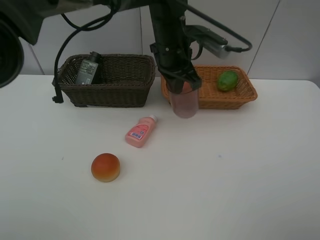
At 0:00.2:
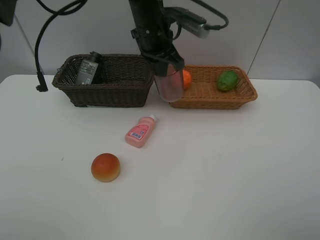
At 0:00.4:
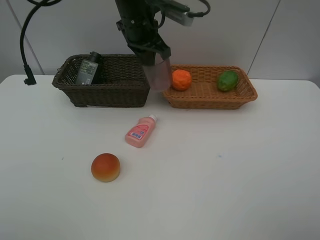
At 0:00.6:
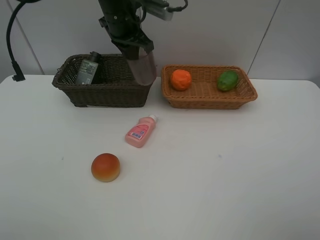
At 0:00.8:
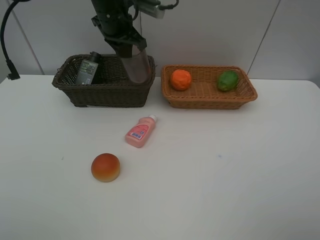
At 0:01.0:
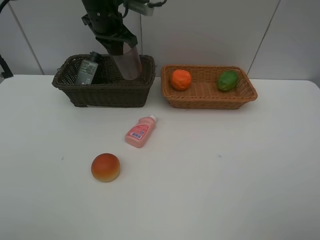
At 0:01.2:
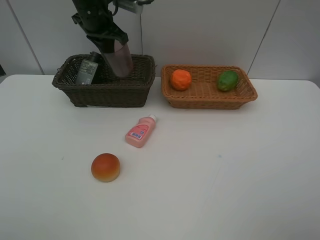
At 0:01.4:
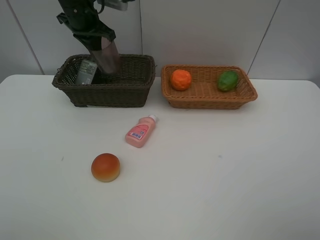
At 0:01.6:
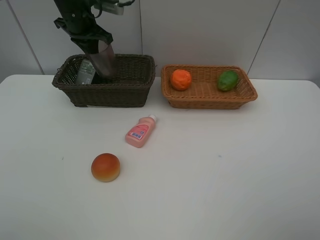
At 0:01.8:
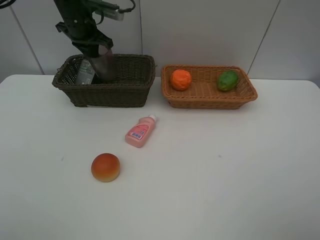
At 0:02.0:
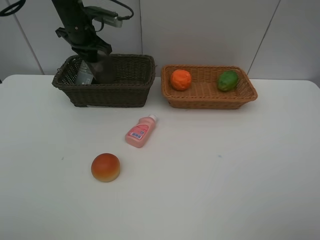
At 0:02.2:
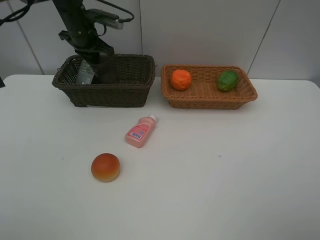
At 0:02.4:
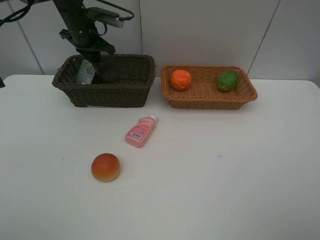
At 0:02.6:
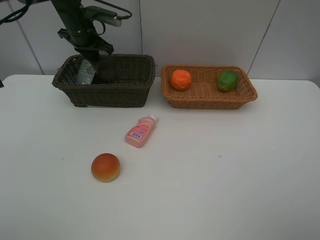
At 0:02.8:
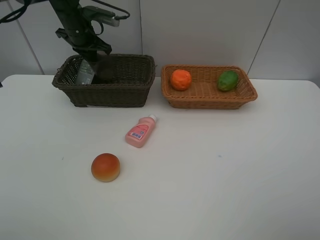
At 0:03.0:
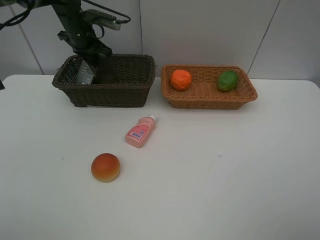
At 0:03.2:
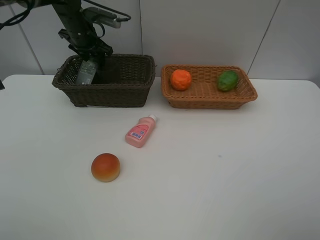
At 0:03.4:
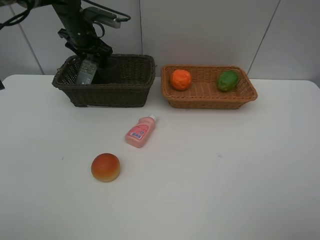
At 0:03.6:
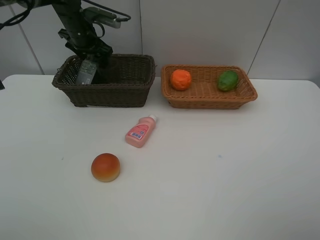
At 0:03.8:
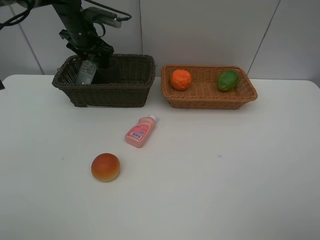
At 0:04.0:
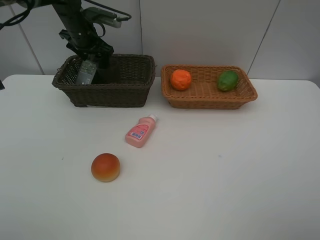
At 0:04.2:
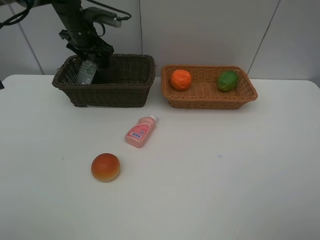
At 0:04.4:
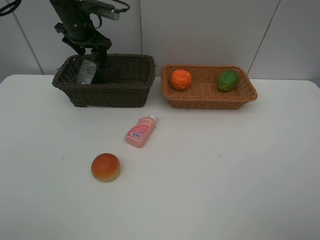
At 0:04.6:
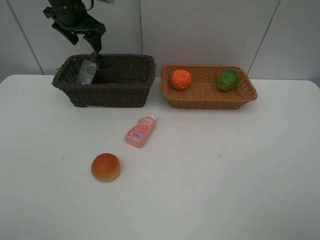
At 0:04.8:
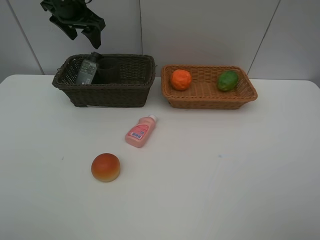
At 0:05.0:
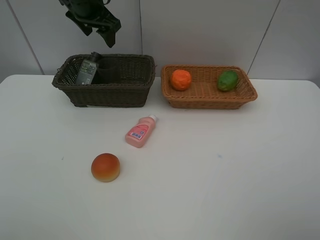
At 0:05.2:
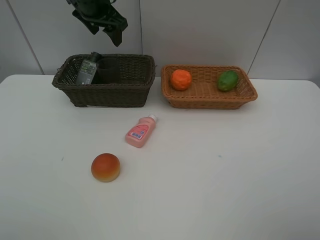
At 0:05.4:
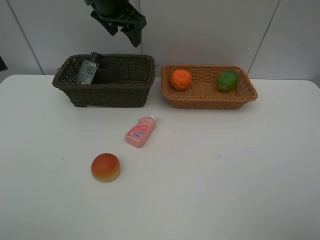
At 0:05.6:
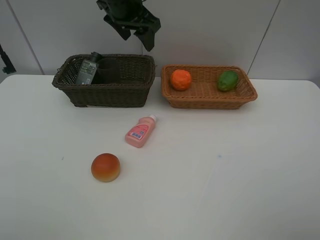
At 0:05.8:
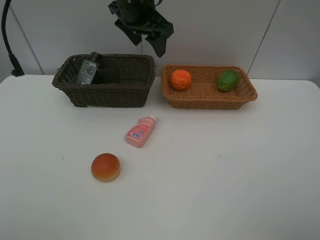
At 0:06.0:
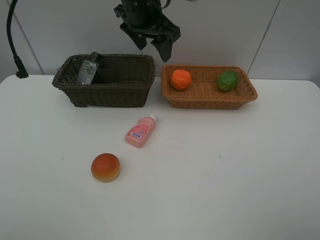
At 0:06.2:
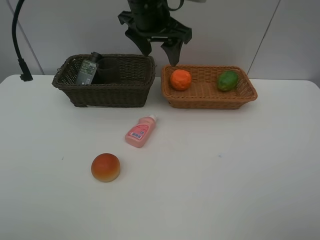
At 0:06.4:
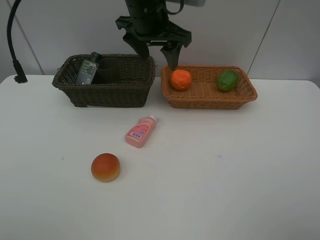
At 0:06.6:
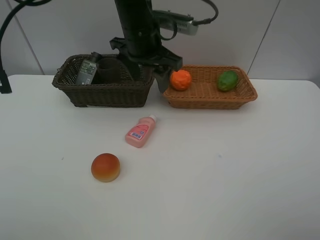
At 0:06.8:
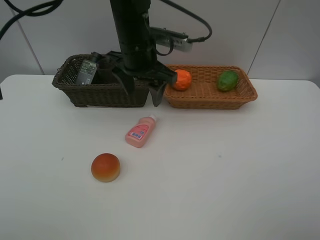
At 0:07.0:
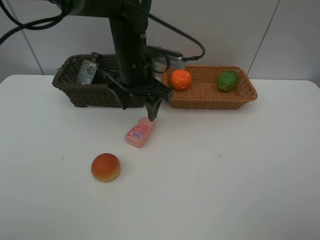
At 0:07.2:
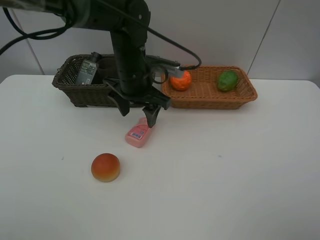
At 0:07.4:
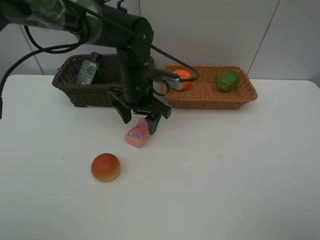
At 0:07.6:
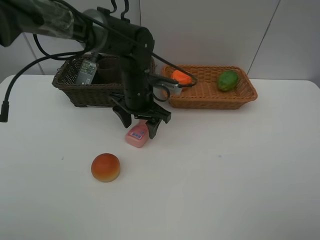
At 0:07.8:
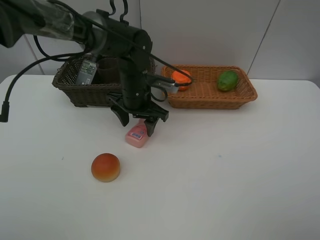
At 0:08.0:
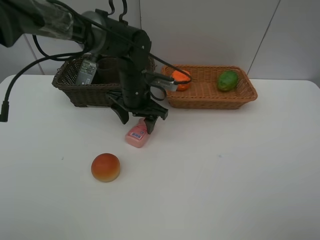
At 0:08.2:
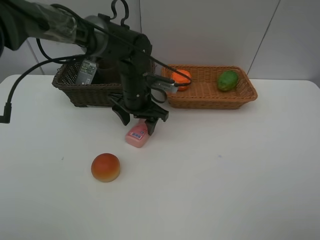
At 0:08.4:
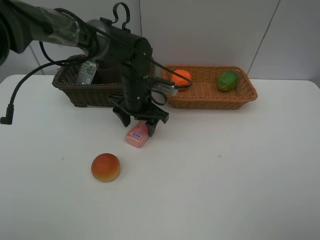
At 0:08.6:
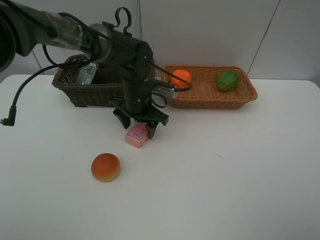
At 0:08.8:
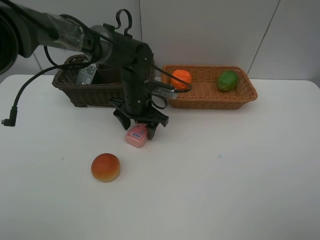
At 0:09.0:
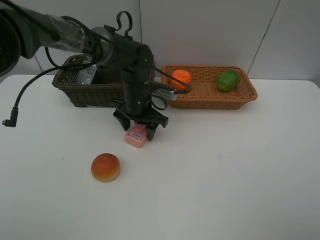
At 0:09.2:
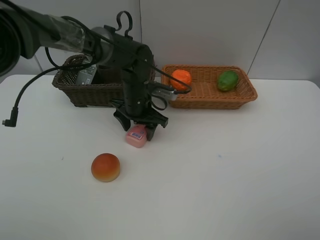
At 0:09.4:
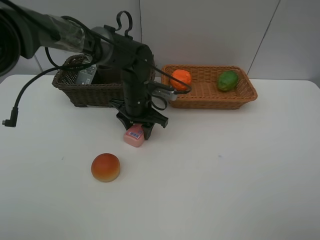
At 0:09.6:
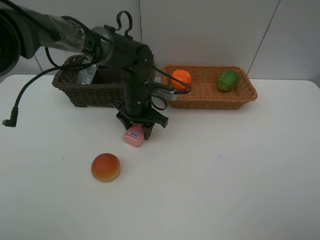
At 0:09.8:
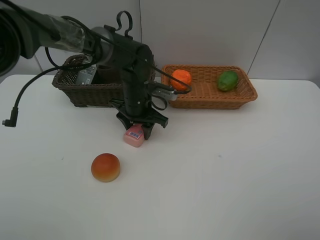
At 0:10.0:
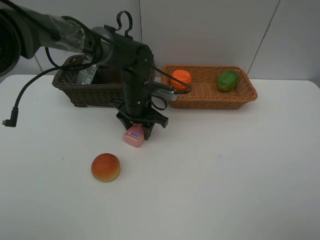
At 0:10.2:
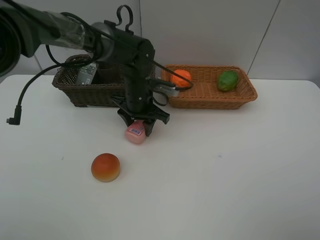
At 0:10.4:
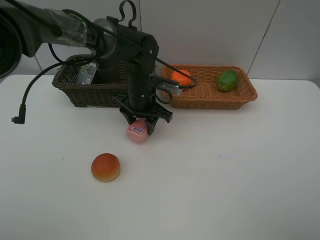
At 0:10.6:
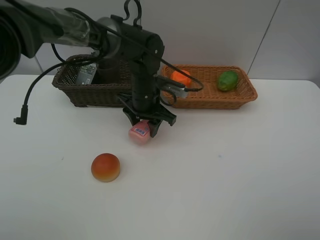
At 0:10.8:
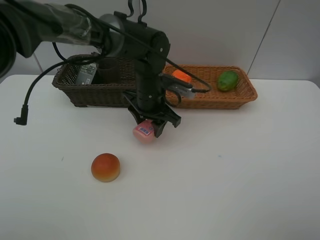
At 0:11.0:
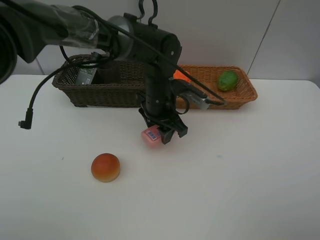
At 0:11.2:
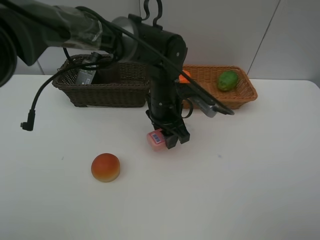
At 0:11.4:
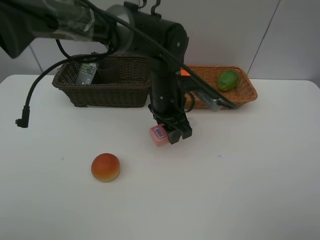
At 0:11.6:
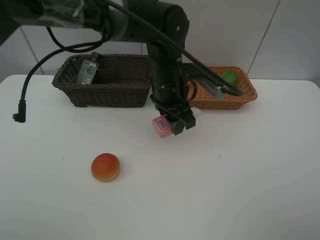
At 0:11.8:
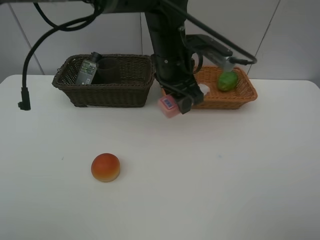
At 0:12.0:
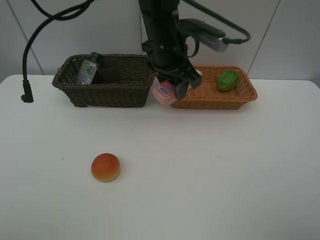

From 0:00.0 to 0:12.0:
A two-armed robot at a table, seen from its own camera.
Task of the whole recording: place multiple objects separately in different baskets.
From 0:00.0 to 0:01.6: The left gripper shifts some 25 cm to the left and forward.
From 0:01.6 to 0:03.0: The left gripper shifts by some 5 cm.
From 0:03.0 to 0:04.4: The left gripper opens its fingers.
From 0:04.4 to 0:06.0: The left gripper shifts roughly 20 cm to the right and backward.
From 0:06.0 to 0:07.6: The left gripper moves downward, about 15 cm.
From 0:07.6 to 0:10.4: There are only small adjustments of the grippers.
From 0:10.4 to 0:12.0: The left gripper shifts about 15 cm upward.

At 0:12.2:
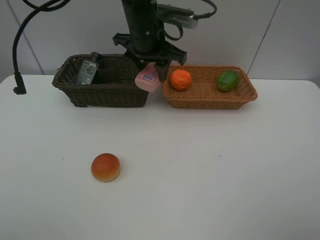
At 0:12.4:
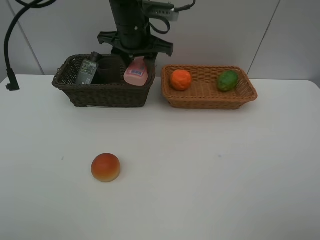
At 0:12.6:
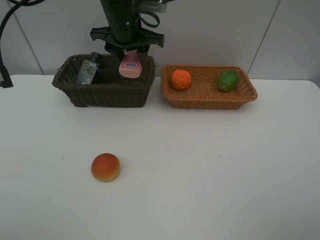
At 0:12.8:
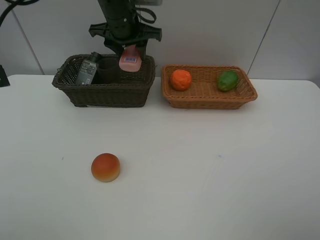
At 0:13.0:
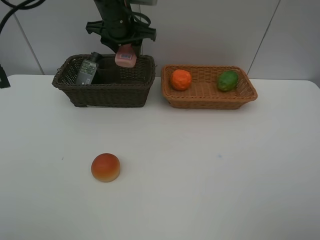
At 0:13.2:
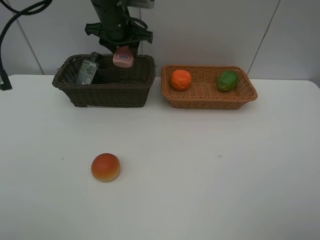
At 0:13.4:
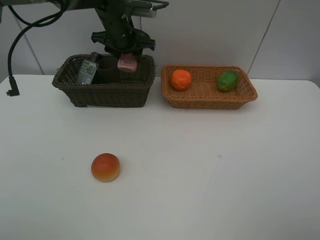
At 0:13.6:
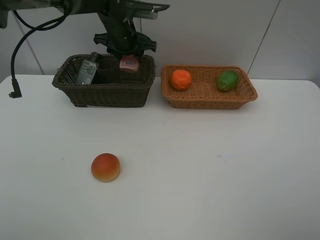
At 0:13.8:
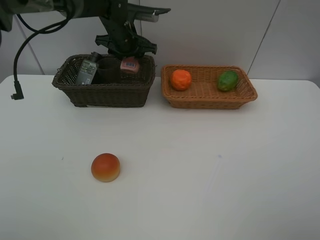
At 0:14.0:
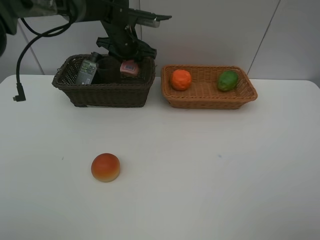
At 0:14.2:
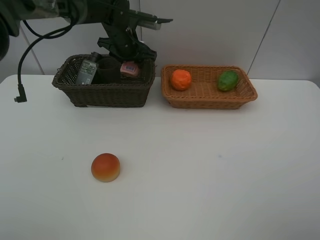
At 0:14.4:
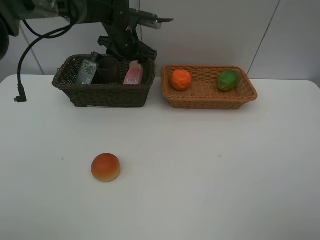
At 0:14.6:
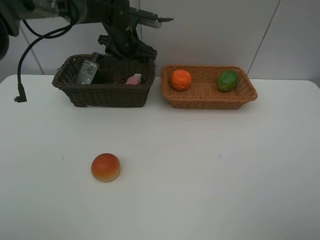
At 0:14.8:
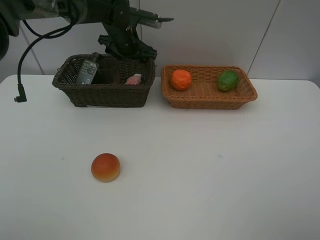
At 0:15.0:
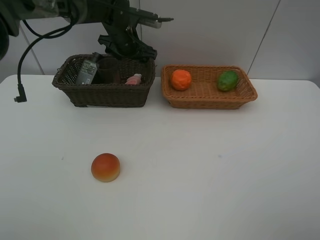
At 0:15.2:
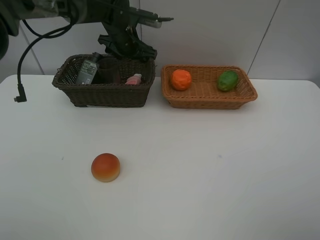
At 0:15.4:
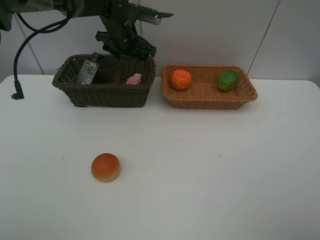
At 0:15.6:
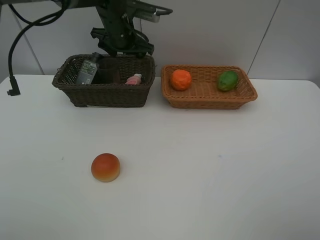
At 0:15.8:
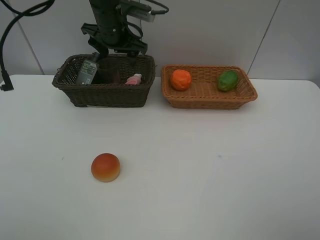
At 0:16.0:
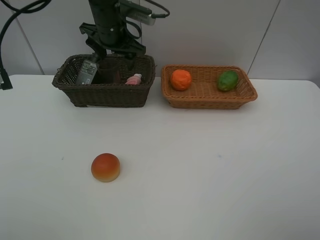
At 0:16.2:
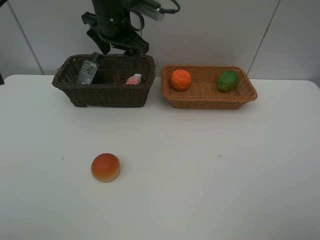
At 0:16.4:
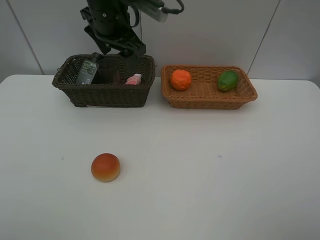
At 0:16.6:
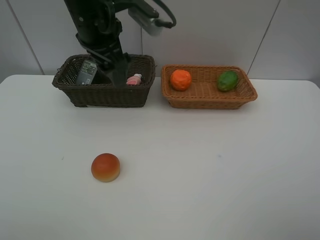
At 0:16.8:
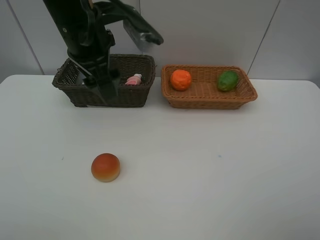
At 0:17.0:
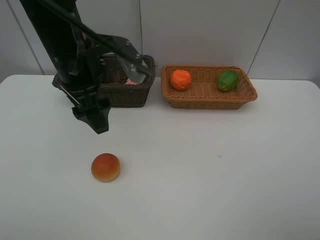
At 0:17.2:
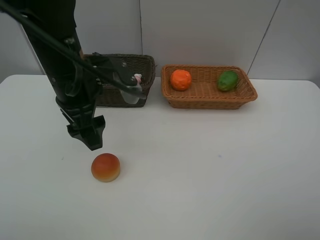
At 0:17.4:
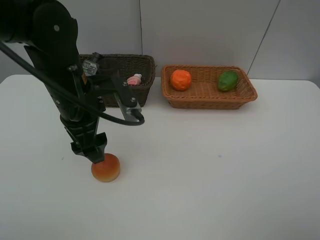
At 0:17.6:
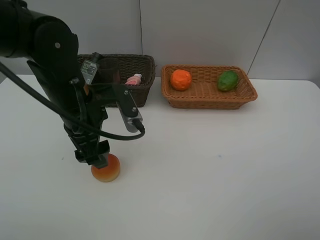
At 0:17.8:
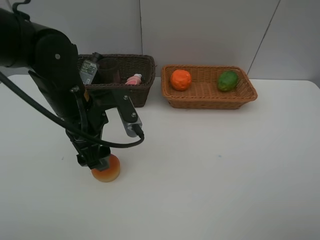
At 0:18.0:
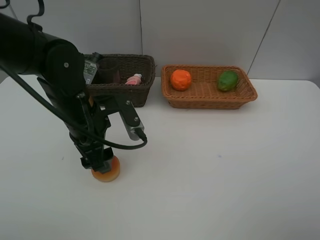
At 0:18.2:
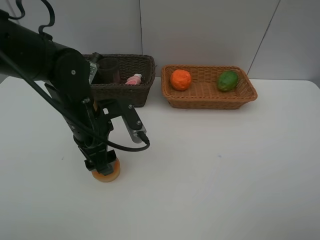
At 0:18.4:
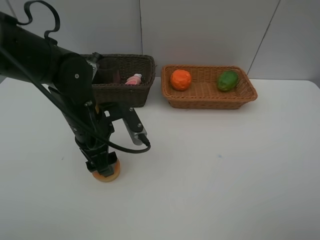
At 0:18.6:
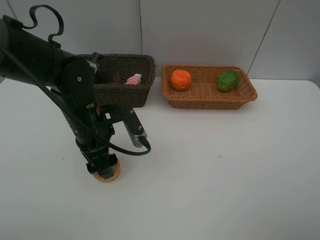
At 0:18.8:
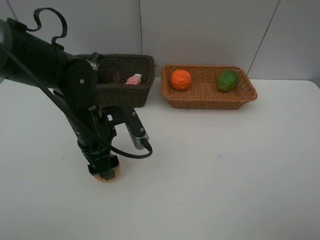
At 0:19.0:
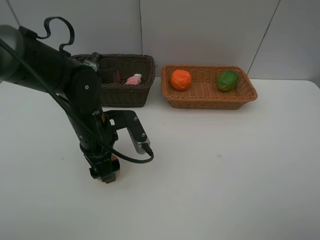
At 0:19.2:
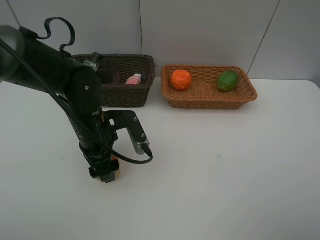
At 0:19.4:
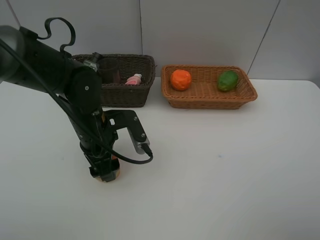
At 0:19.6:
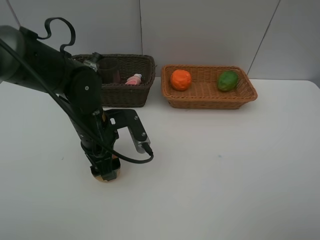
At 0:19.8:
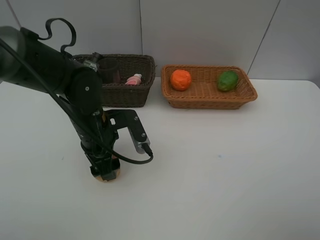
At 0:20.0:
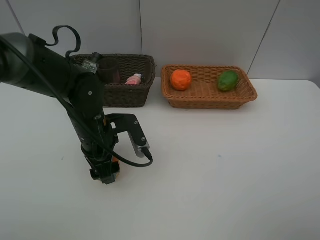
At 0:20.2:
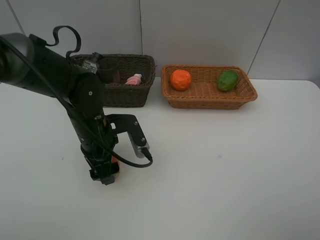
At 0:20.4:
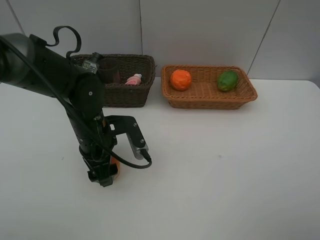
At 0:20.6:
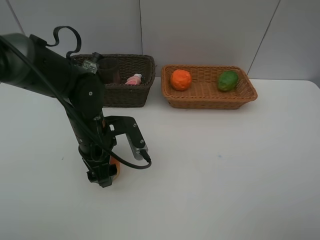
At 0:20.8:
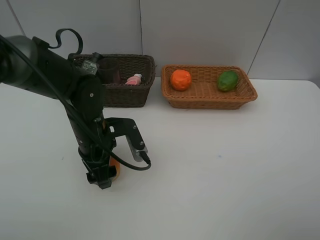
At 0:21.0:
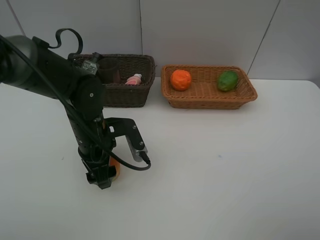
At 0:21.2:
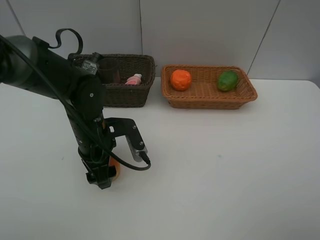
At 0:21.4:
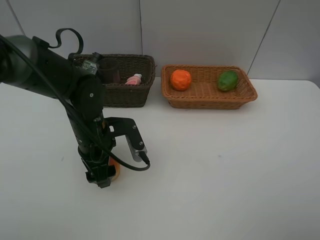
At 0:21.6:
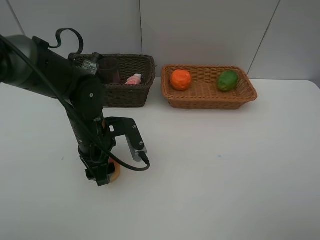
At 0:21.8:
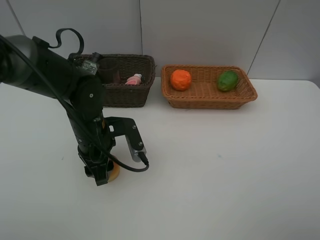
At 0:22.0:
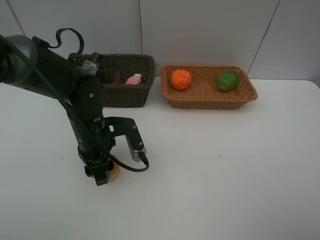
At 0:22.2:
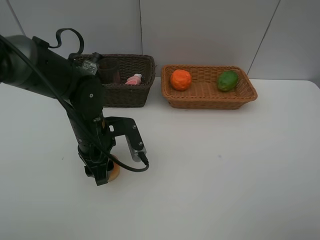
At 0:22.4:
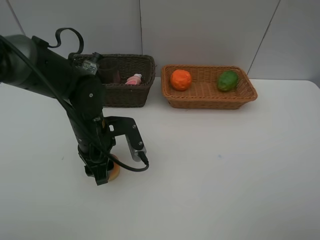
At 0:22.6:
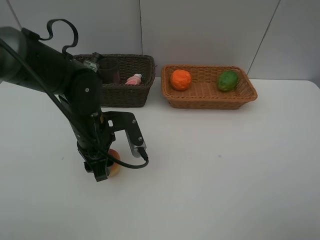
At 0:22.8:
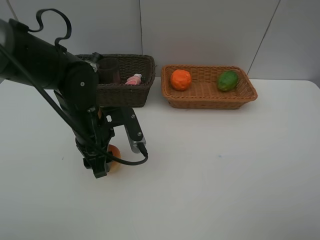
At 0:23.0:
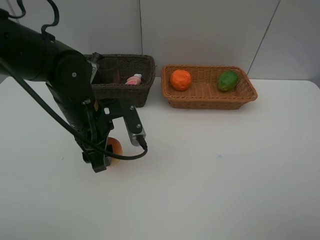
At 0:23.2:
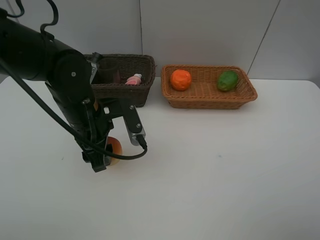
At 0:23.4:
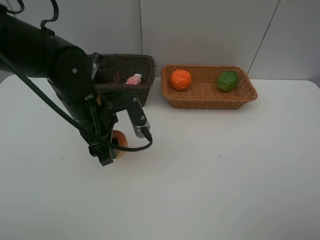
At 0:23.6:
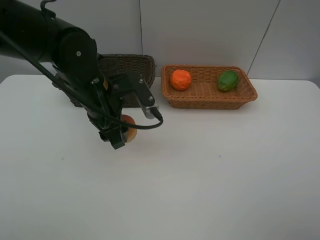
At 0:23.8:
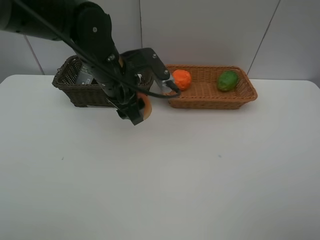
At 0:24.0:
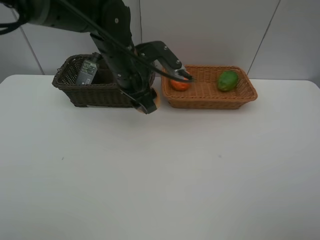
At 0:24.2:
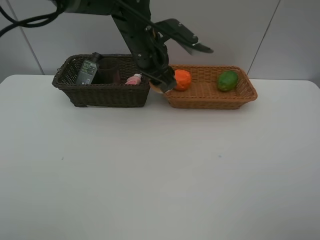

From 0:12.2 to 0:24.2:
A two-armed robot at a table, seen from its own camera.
Task of the whole recording: place multiple objects separately in different baskets.
From 0:12.2 to 0:13.8: The left gripper heads forward, to the left and downward, covering some 10 cm.
From 0:13.8 to 0:15.2: The grippers move only a little.
From 0:15.2 to 0:16.6: The left gripper is displaced backward and upward by roughly 20 cm.
From 0:16.6 to 0:18.2: The left gripper travels downward and backward by approximately 15 cm.
From 0:18.2 to 0:22.6: The grippers stay close to where they were, moving slightly.
From 0:22.6 to 0:24.2: The left gripper moves forward, upward and to the right, roughly 20 cm.
